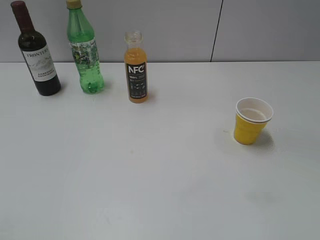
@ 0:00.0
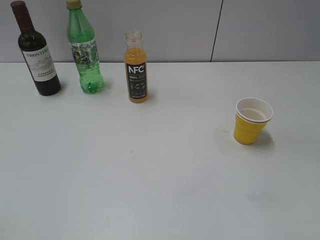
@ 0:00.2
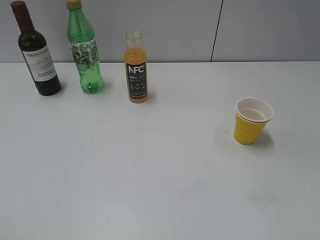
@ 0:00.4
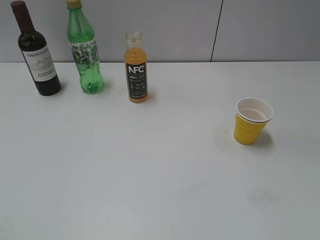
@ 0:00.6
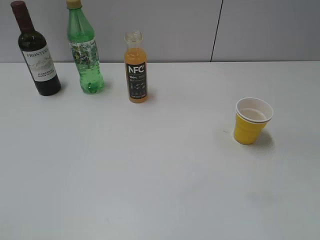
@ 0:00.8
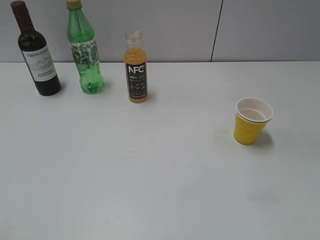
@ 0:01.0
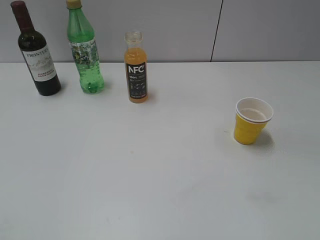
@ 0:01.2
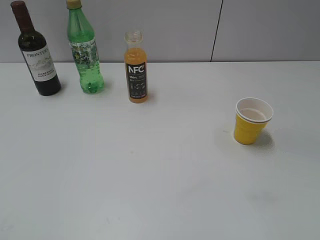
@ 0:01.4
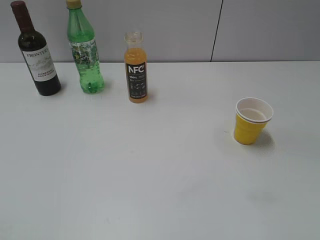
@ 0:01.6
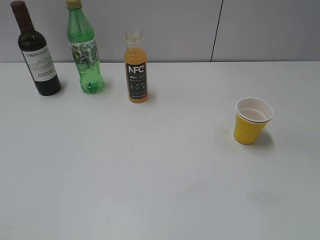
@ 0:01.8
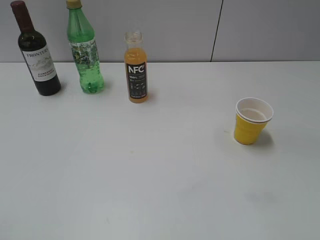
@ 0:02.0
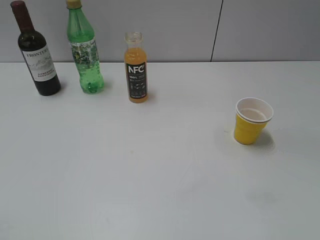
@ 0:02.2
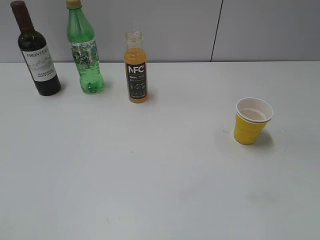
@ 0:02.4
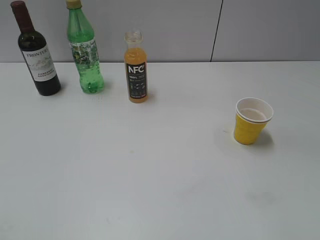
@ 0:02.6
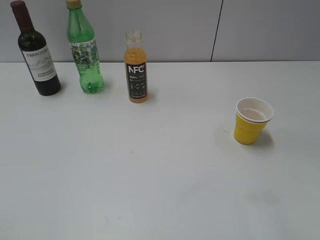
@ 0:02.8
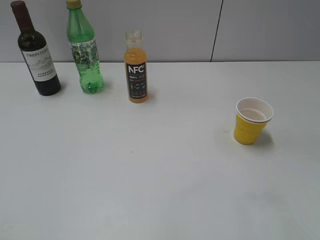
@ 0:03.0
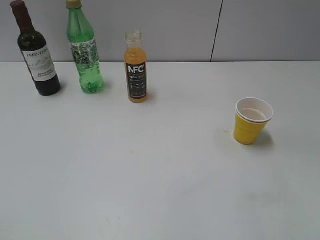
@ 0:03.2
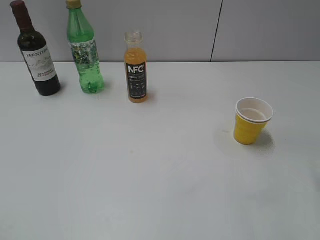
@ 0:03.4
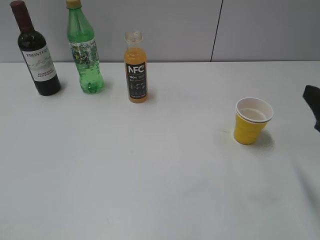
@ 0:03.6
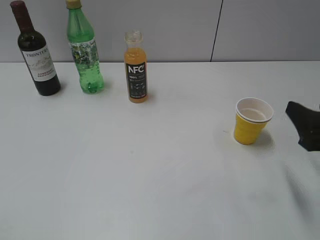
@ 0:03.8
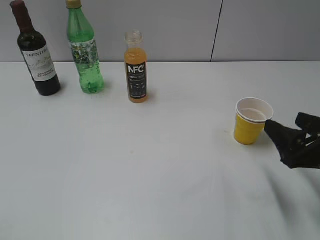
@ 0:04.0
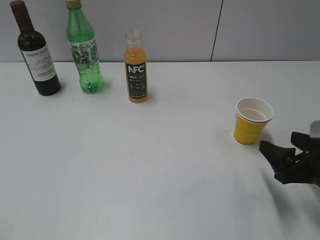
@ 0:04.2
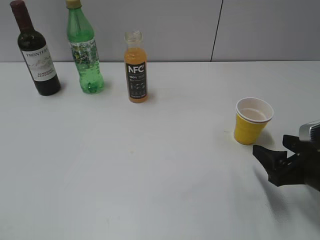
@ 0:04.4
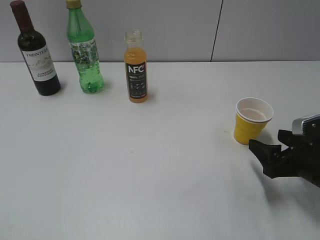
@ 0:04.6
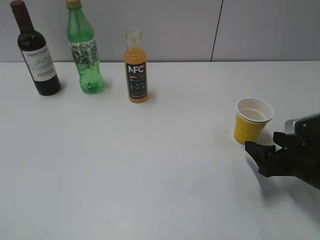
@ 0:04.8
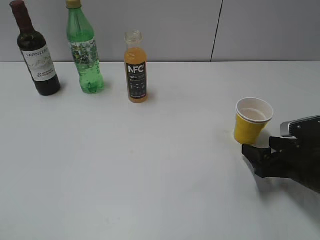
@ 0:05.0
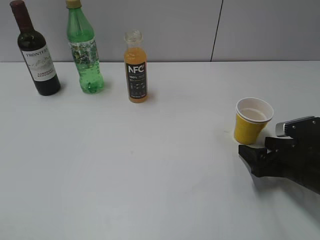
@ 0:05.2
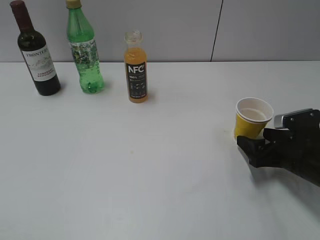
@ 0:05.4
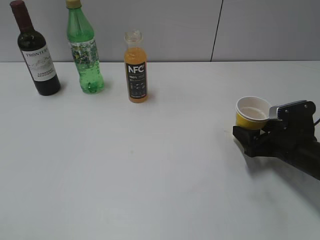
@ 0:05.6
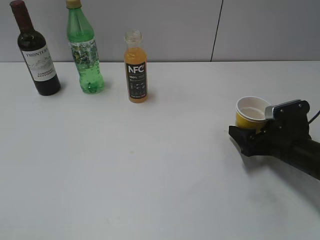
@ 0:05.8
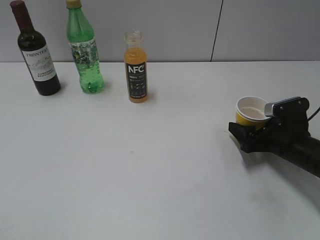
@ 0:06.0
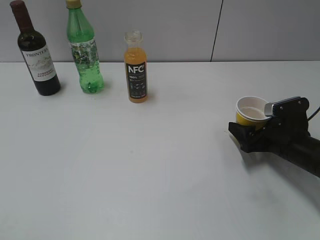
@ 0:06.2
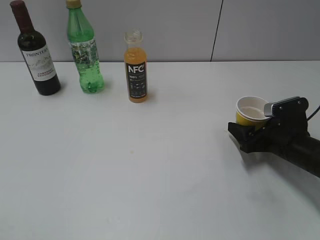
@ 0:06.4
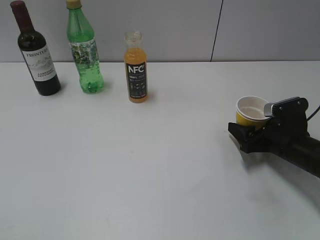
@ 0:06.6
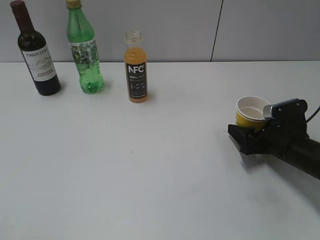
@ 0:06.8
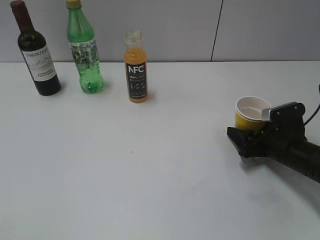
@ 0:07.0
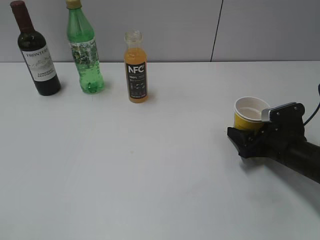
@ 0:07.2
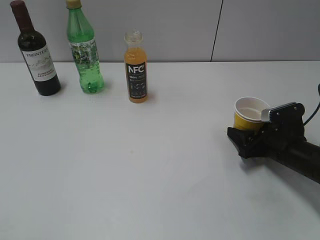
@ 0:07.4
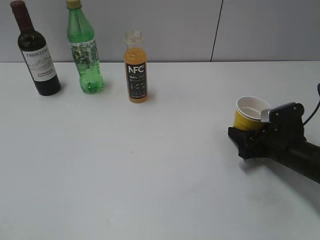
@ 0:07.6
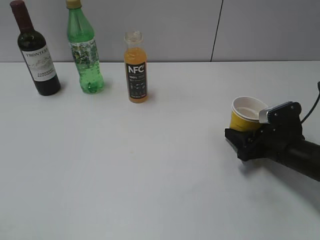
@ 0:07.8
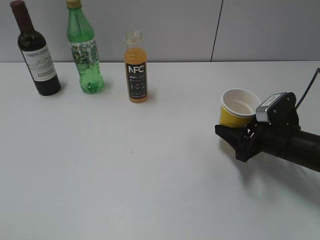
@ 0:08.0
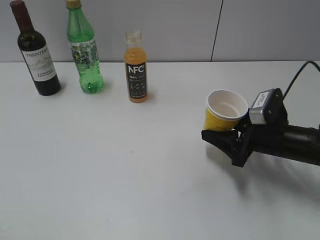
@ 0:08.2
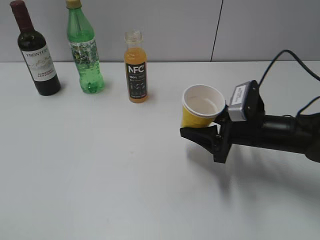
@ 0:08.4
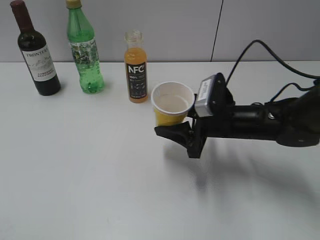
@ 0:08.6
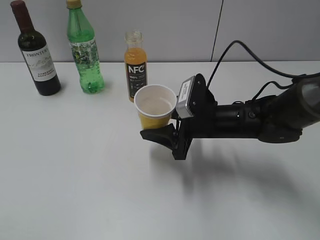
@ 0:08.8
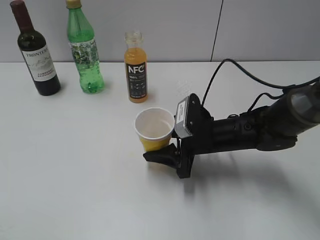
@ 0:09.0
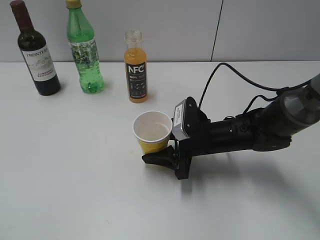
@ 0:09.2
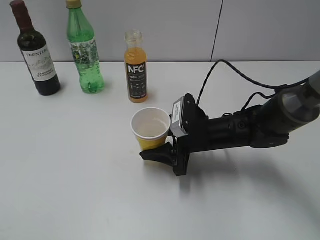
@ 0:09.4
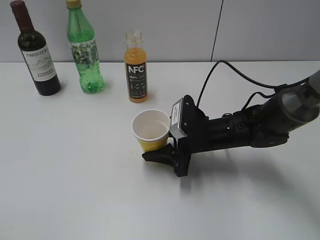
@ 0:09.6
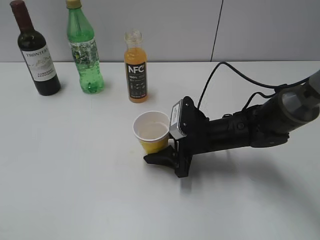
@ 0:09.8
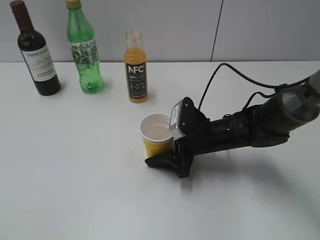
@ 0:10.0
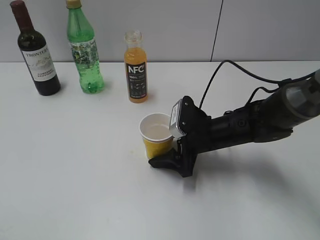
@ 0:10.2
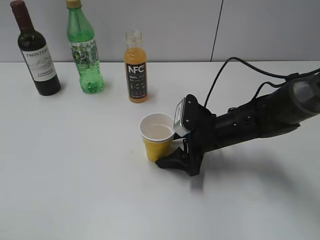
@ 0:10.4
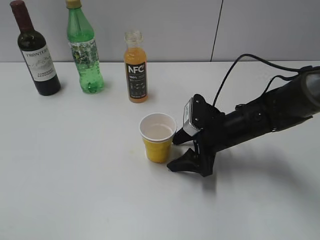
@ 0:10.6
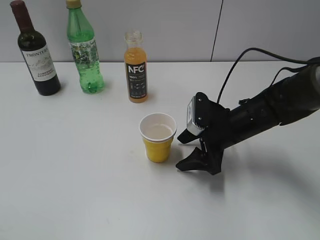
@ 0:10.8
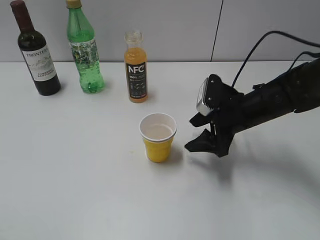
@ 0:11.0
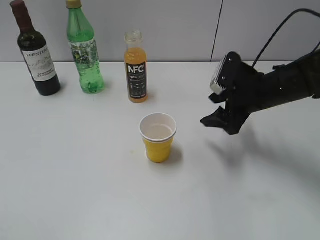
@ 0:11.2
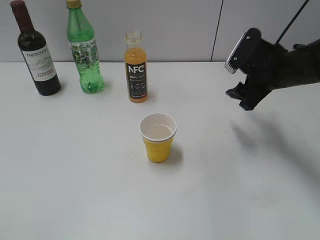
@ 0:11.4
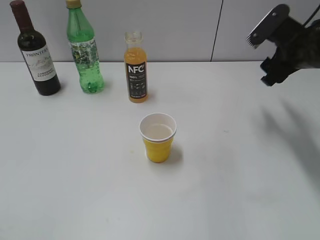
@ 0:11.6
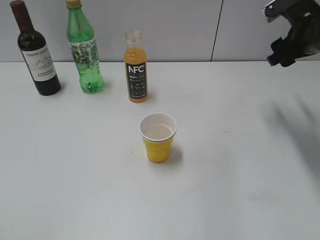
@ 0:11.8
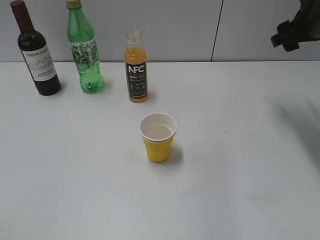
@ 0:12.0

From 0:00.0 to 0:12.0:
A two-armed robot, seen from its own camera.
Step, from 0:03.6 to 0:07.4: Grasp the yellow paper cup with right gripper.
Step, from 0:07.8 to 0:10.4: Place the yellow paper cup on the table with right gripper.
From 0:03.0 to 0:04.4: The right gripper shifts about 20 cm downward and forward.
From 0:04.4 to 0:06.0: The right gripper moves forward, some 10 cm.
From 0:06.0 to 0:07.6: The right gripper closes up.
From 0:07.6 to 0:09.0: The right gripper travels to the left by about 15 cm.
From 0:09.0 to 0:10.4: The right gripper opens its fingers.
From 0:10.4 to 0:12.0: The right gripper is displaced upward, to the right and forward by about 25 cm.

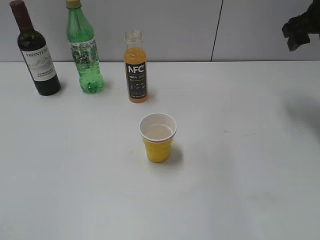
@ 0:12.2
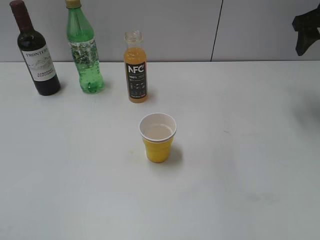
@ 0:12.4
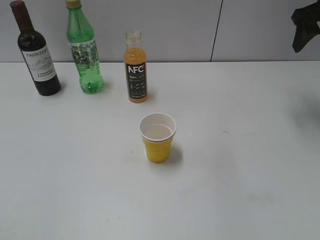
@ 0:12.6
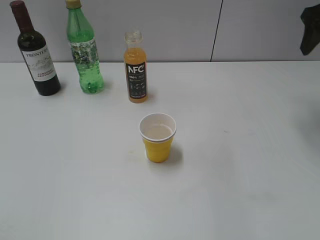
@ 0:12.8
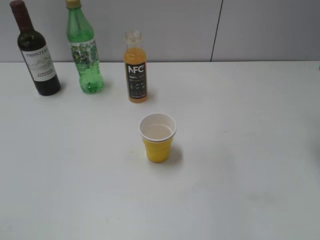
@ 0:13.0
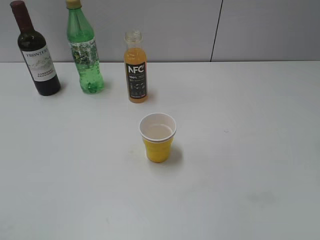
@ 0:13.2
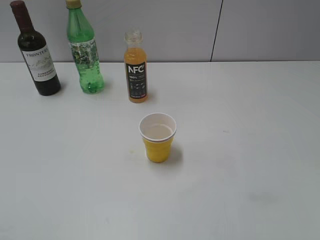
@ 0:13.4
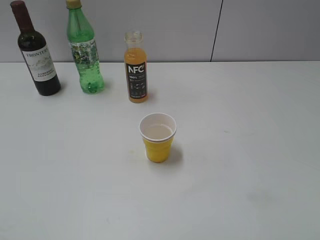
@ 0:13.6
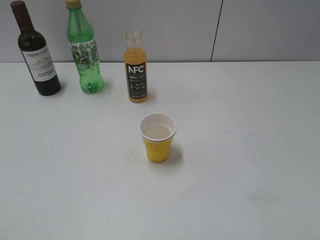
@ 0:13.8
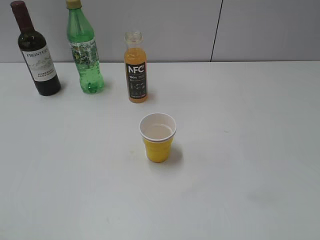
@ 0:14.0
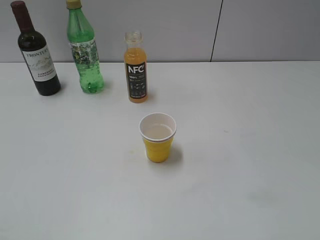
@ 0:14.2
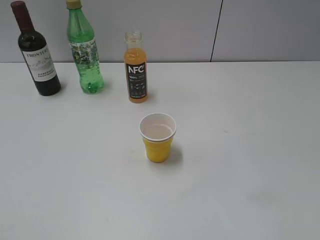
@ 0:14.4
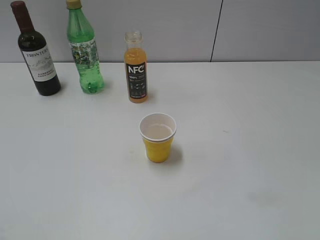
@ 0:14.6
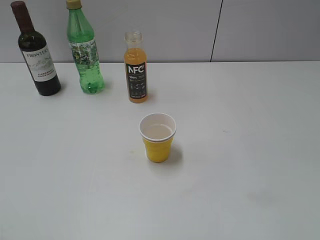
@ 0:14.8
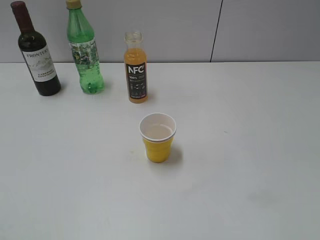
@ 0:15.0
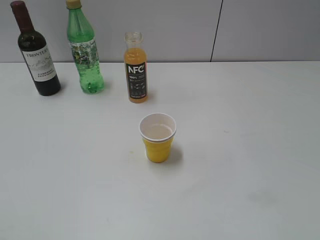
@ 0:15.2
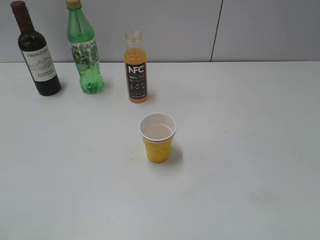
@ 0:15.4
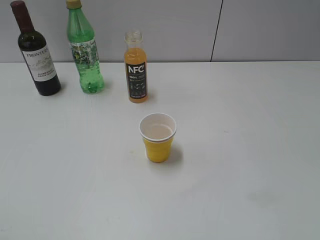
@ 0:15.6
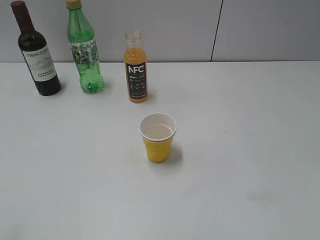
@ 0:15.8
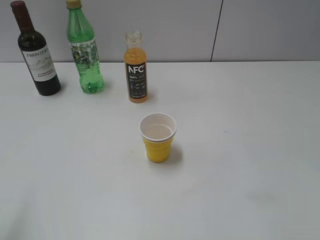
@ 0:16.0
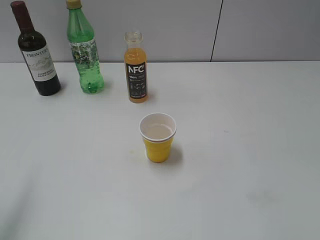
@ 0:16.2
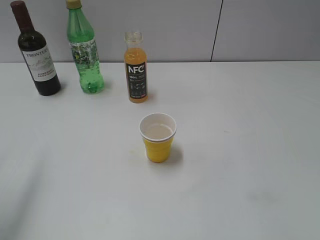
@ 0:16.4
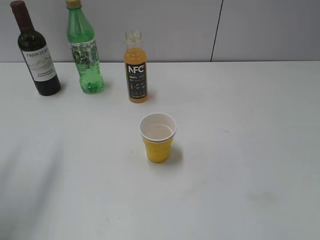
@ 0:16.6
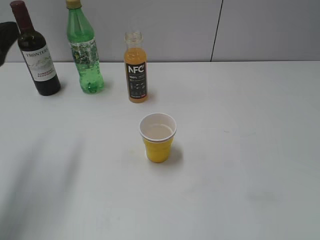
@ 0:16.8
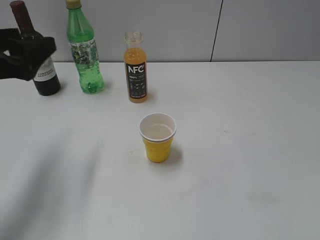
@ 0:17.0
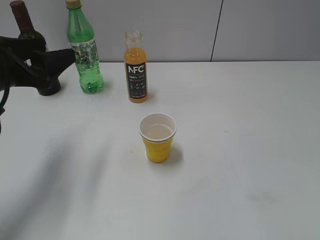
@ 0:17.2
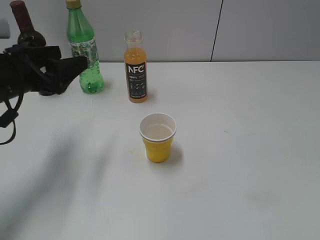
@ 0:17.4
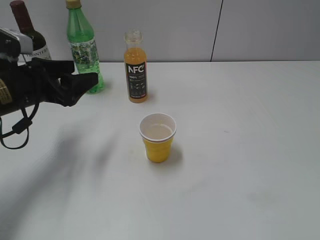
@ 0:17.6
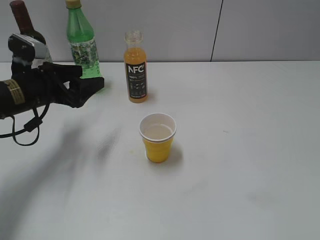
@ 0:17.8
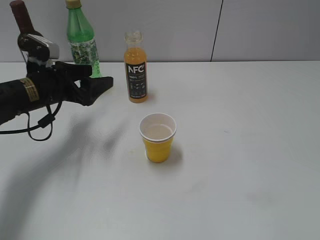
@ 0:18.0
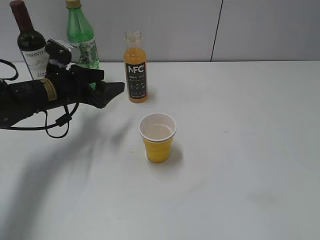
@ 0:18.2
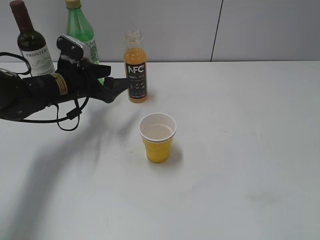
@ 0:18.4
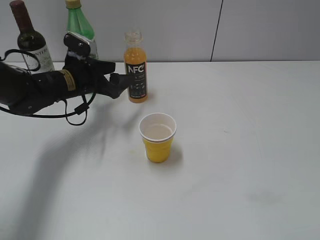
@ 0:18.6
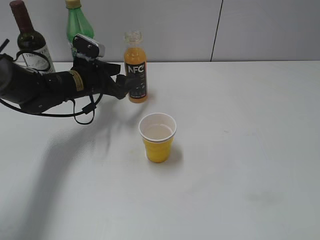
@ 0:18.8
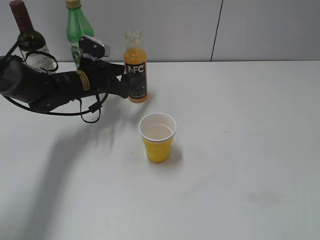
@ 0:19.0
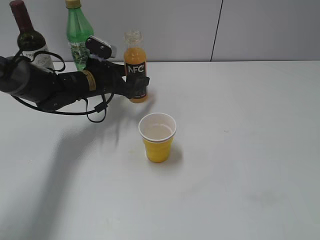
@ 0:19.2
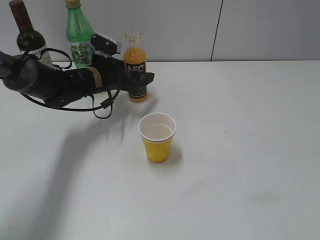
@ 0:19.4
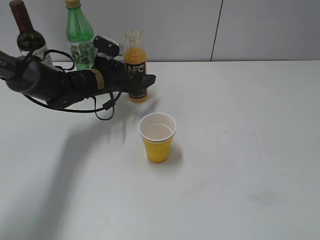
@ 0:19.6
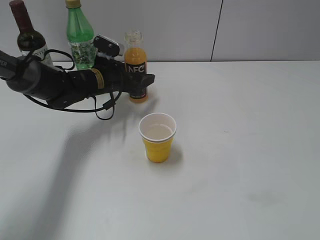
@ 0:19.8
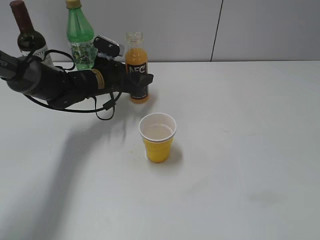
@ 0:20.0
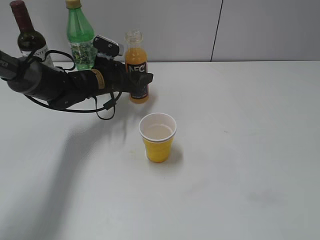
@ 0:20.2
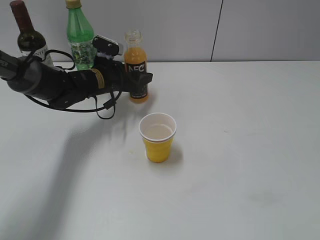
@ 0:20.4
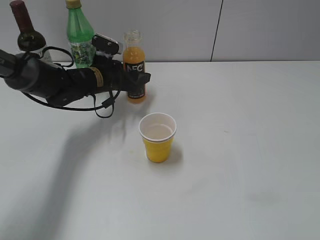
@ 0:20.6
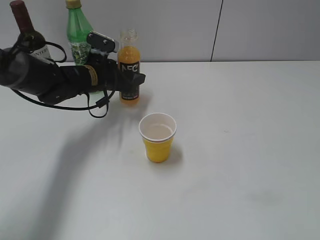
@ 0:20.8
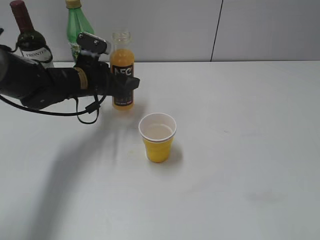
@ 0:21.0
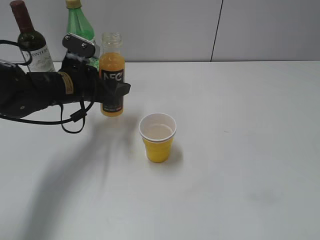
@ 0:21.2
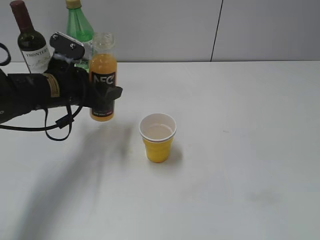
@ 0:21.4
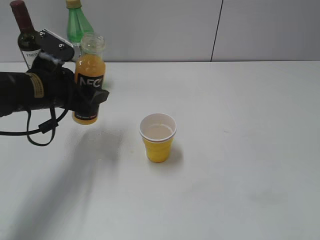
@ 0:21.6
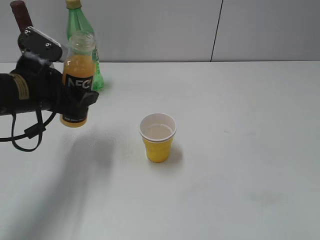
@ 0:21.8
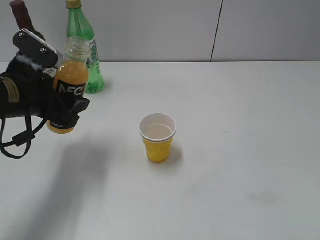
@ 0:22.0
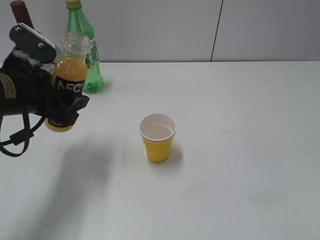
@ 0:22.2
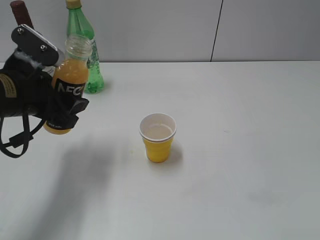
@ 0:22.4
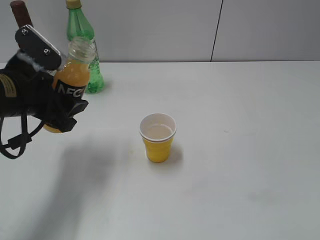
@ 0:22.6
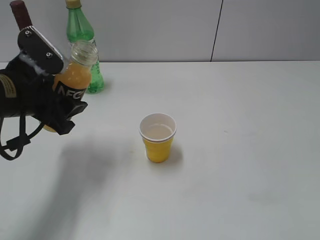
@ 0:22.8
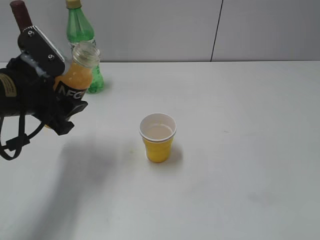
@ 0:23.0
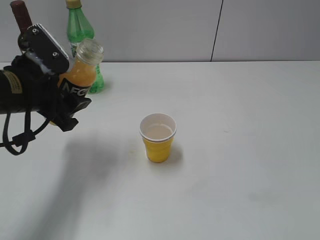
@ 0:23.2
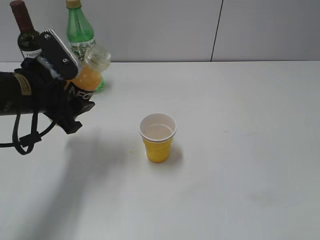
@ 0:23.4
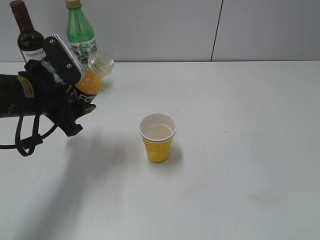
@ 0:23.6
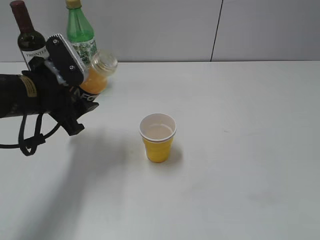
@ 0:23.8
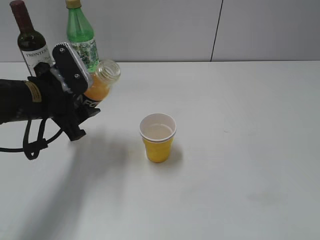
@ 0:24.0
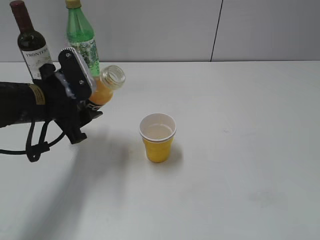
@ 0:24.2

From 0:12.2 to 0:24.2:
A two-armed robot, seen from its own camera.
Step, from 0:12.2 to 0:20.2: Grasp the bottle with orange juice with left gripper.
From 0:12.2 to 0:13.8: The right gripper heads backward, covering approximately 30 cm.
From 0:15.2 to 0:16.6: The left gripper travels forward by some 20 cm, and opens up.
From 0:16.6 to 0:18.2: The left gripper shifts some 25 cm forward, downward and to the right.
From 0:18.2 to 0:19.8: The left gripper goes approximately 10 cm to the right and forward.
From 0:19.8 to 0:21.2: The left gripper heads backward, covering about 10 cm, and closes up.
From 0:21.2 to 0:22.6: The left gripper is displaced backward and upward by some 10 cm.
